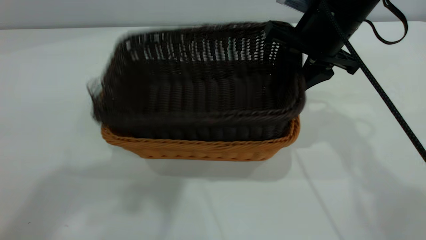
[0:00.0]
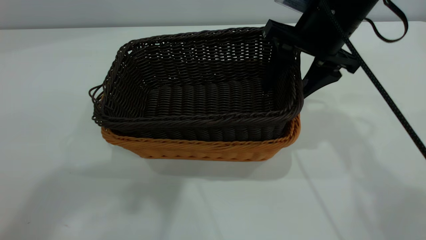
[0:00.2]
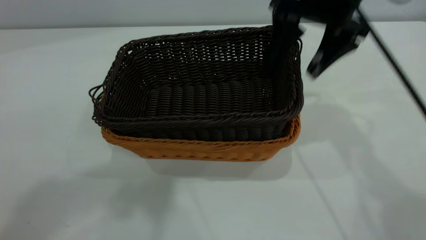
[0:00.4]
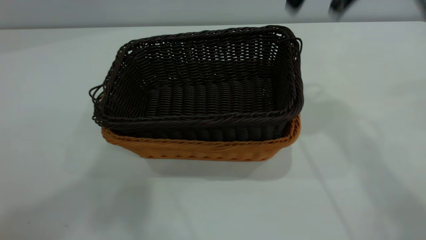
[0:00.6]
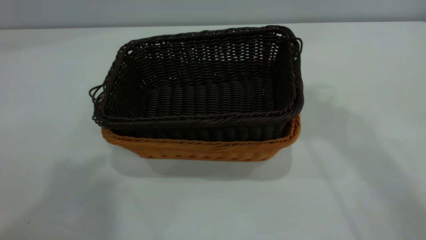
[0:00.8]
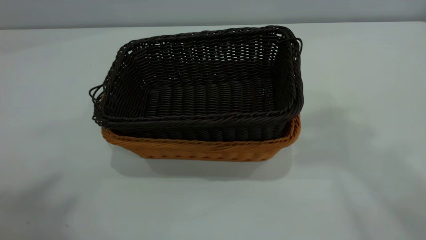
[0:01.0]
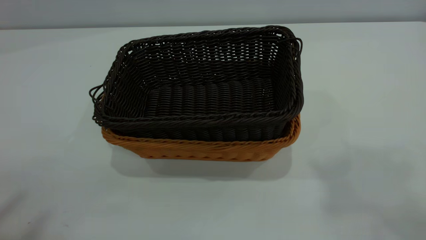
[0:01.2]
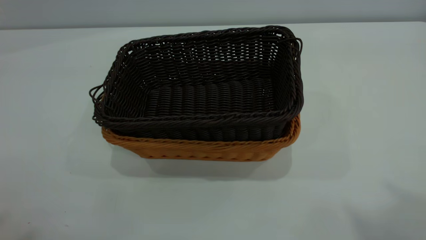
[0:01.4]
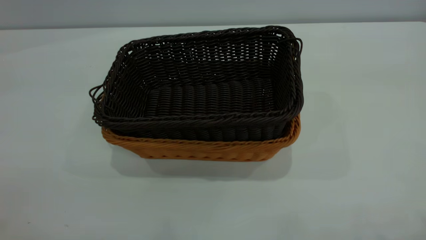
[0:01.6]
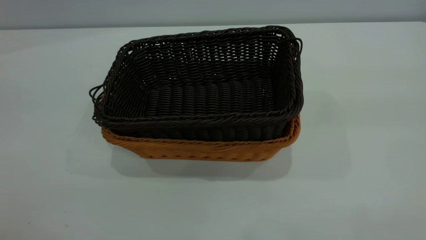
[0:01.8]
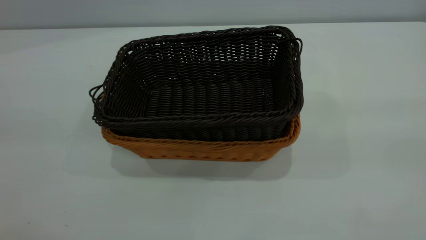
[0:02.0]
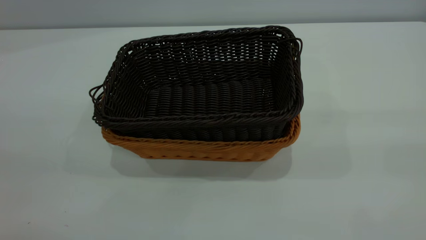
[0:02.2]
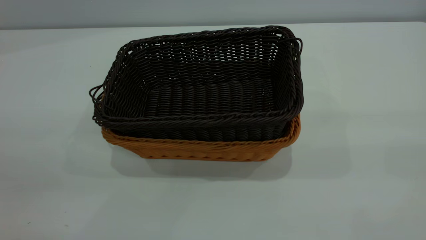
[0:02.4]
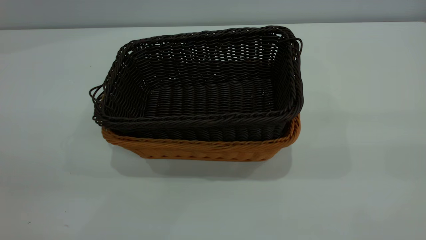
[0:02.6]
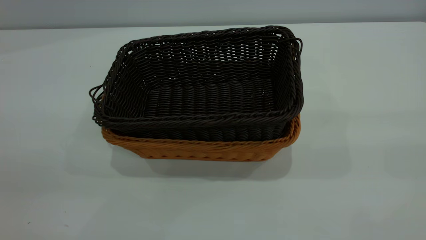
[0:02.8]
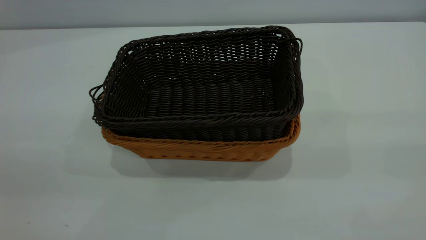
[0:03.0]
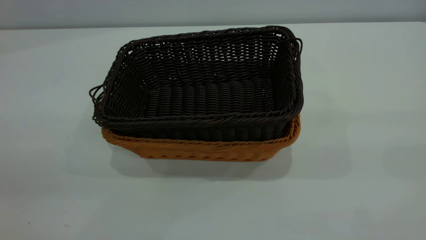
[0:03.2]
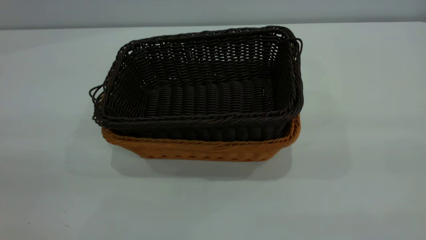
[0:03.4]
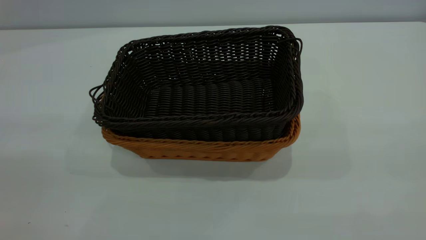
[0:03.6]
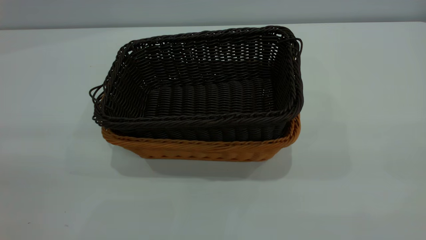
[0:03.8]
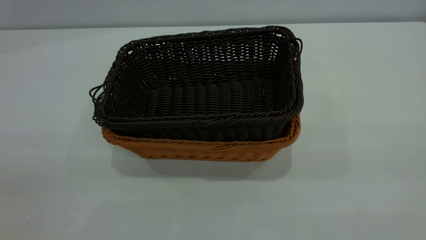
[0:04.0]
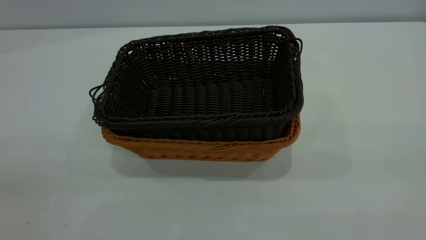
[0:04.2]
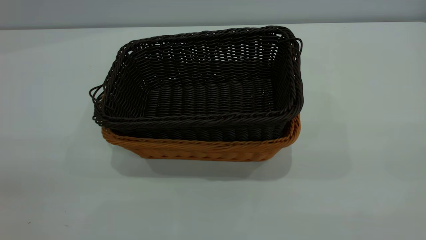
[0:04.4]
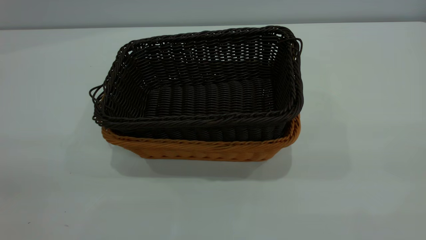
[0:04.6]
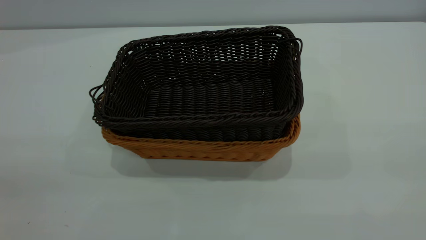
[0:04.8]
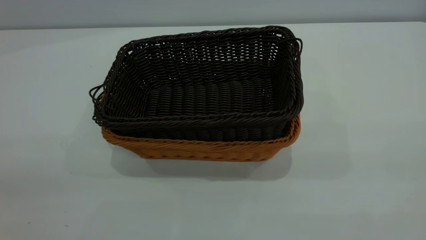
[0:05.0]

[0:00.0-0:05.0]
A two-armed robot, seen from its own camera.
Task of the whole recording: the left gripper grasp the brown basket and place it in the center of the table, the right gripper grasp the black basket and place it inside the brown one.
0:00.0 to 0:01.6: The right gripper goes approximately 40 cm upward and backward, and opens up, while the left gripper heads backward and to the left, covering approximately 25 cm.

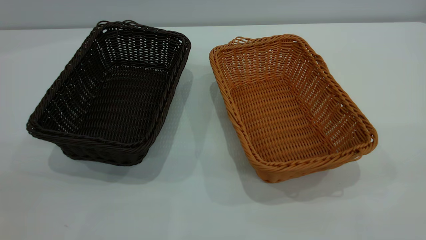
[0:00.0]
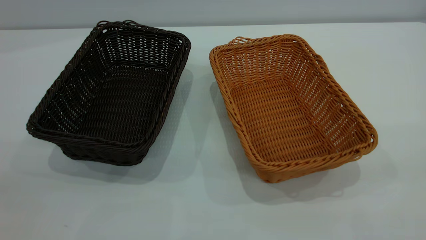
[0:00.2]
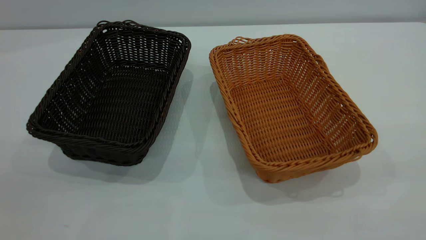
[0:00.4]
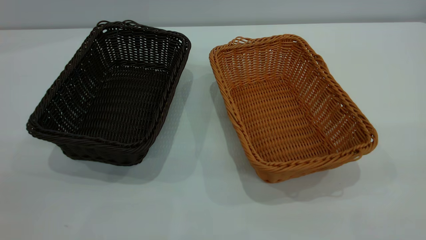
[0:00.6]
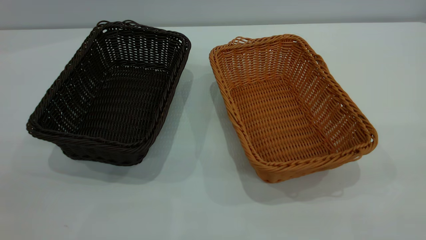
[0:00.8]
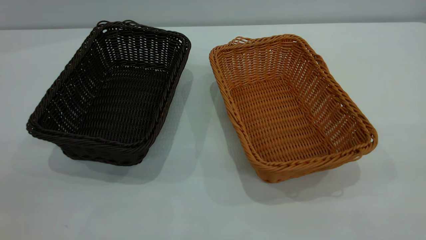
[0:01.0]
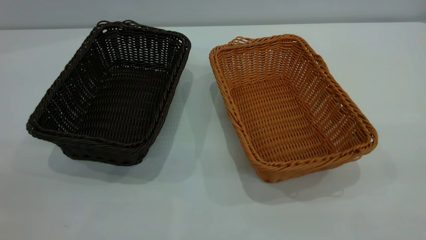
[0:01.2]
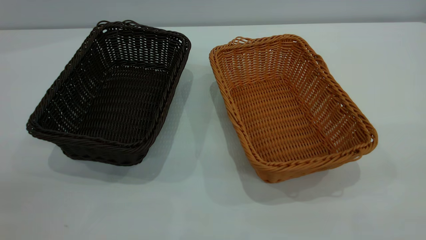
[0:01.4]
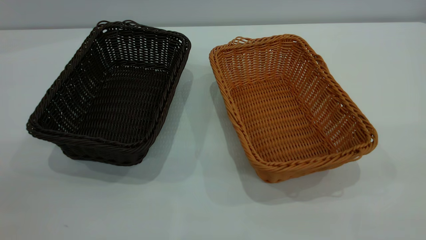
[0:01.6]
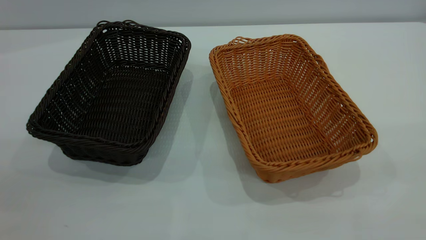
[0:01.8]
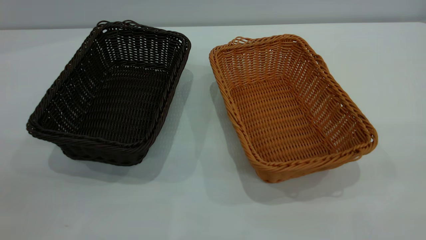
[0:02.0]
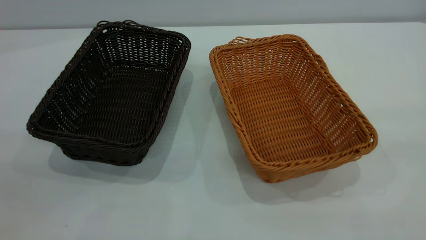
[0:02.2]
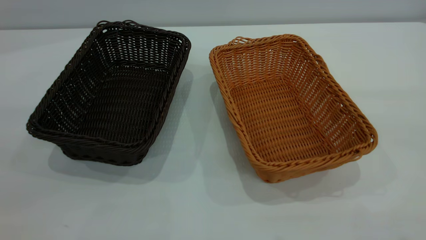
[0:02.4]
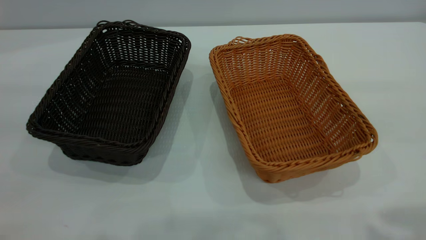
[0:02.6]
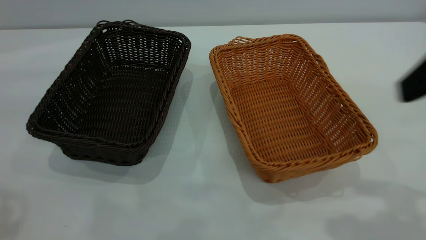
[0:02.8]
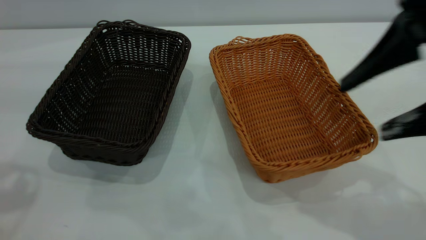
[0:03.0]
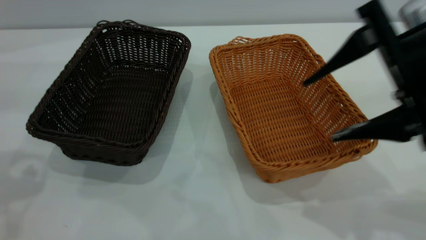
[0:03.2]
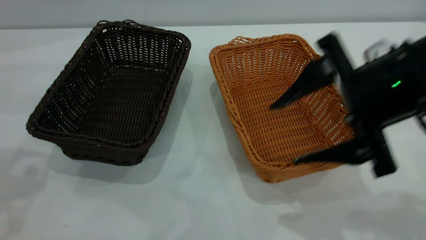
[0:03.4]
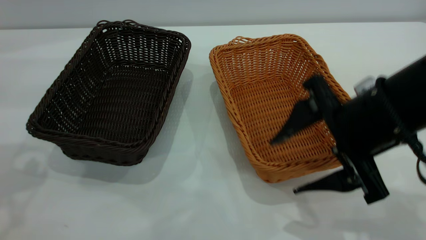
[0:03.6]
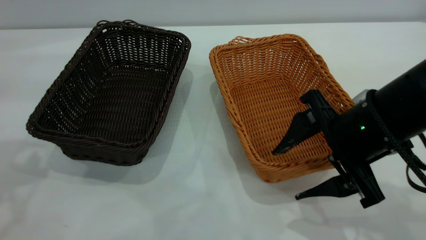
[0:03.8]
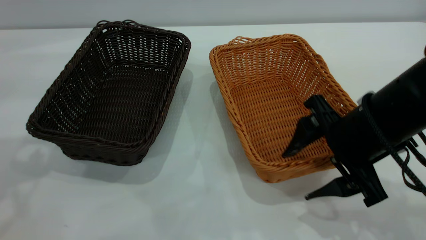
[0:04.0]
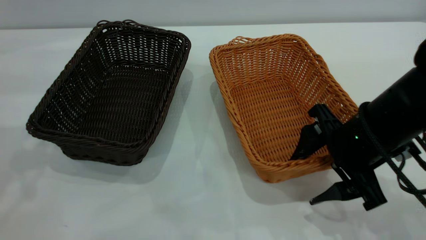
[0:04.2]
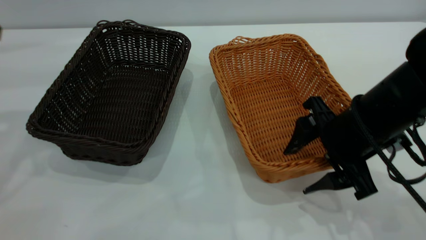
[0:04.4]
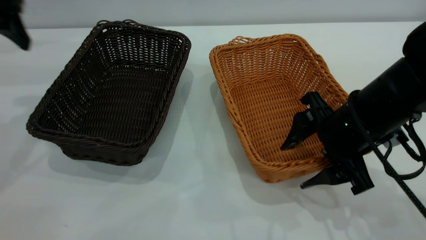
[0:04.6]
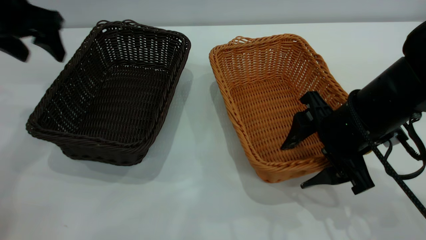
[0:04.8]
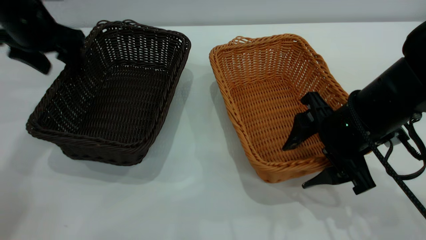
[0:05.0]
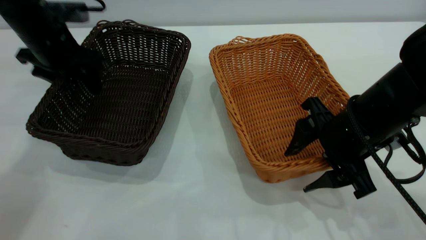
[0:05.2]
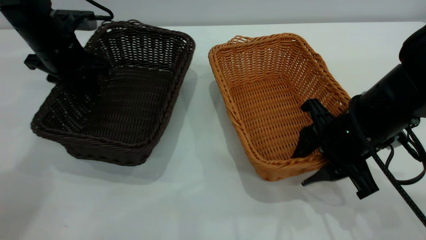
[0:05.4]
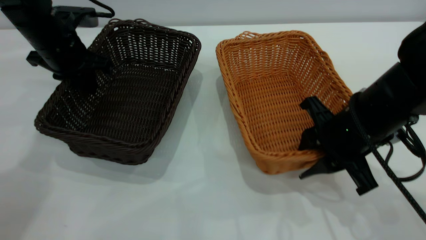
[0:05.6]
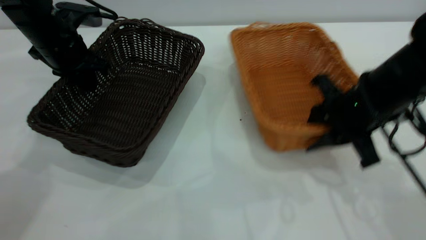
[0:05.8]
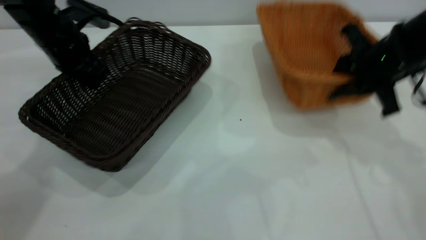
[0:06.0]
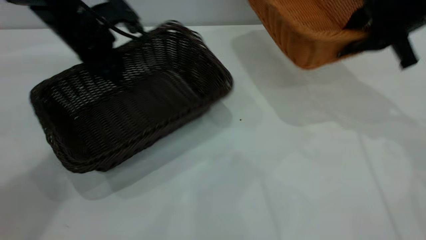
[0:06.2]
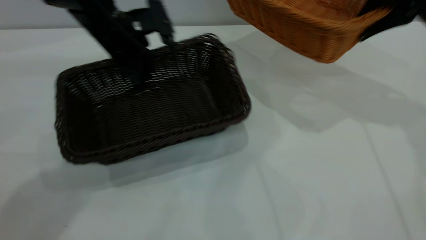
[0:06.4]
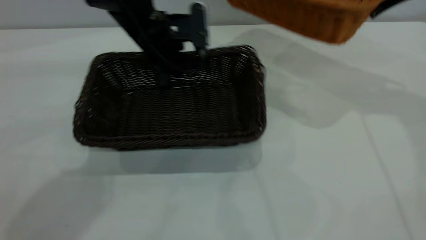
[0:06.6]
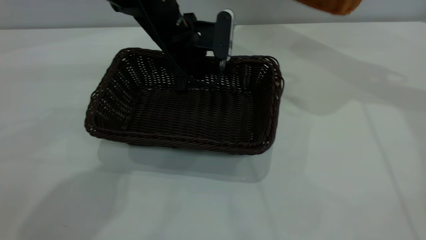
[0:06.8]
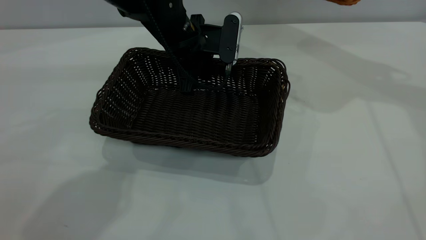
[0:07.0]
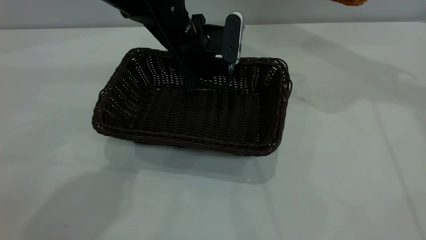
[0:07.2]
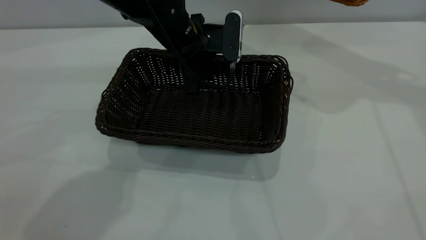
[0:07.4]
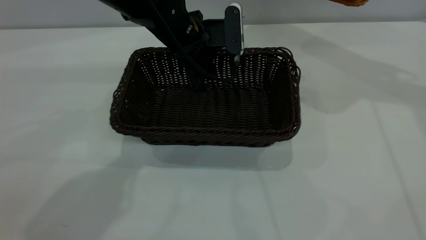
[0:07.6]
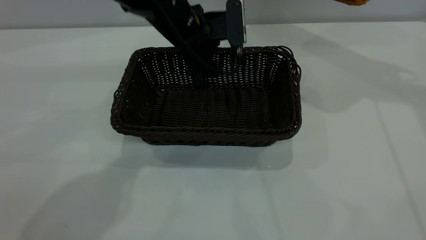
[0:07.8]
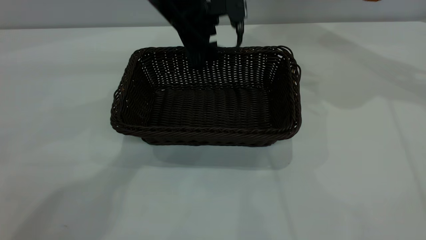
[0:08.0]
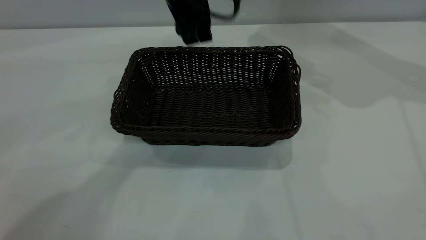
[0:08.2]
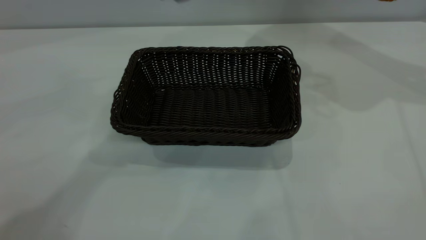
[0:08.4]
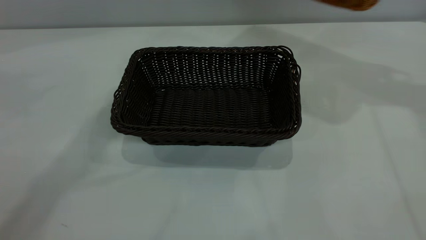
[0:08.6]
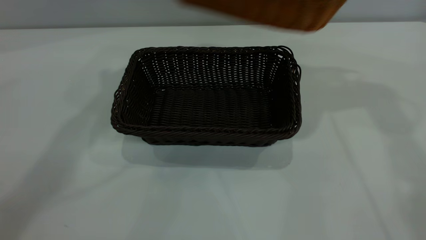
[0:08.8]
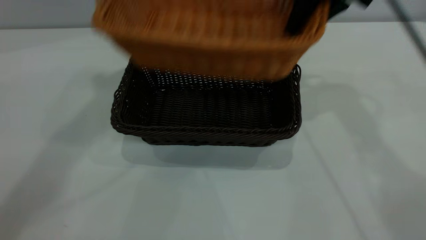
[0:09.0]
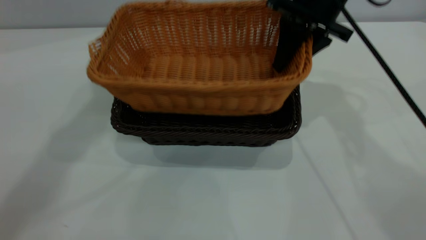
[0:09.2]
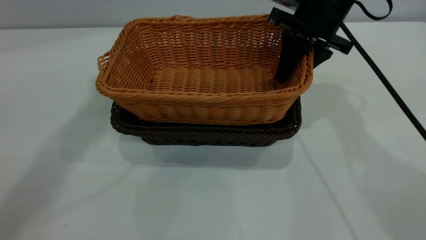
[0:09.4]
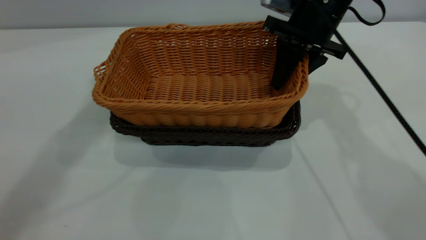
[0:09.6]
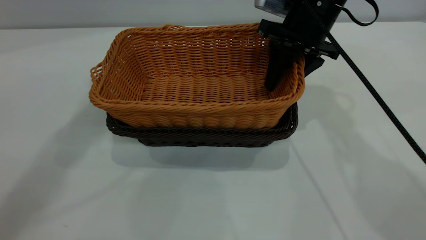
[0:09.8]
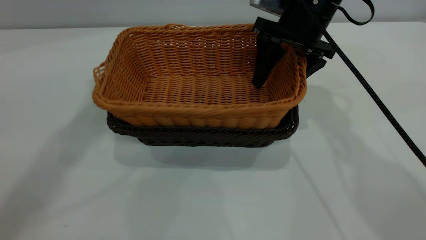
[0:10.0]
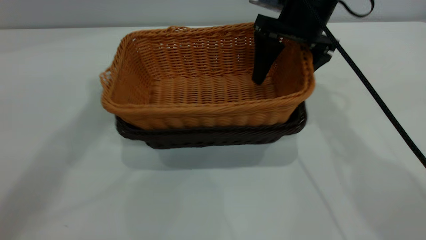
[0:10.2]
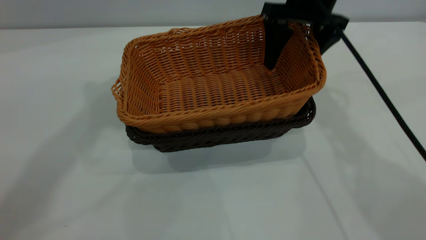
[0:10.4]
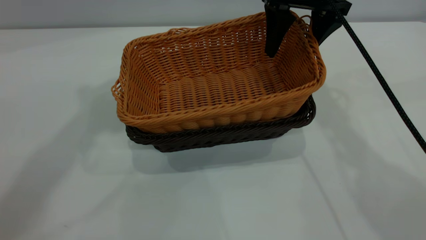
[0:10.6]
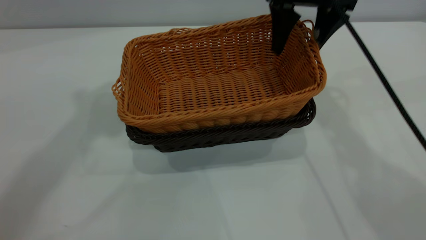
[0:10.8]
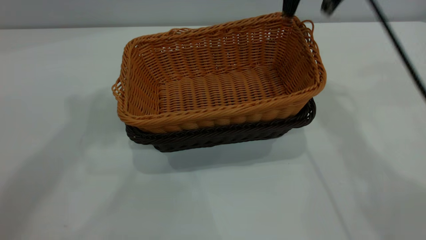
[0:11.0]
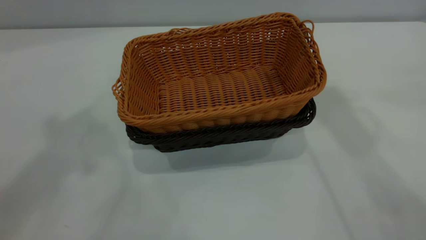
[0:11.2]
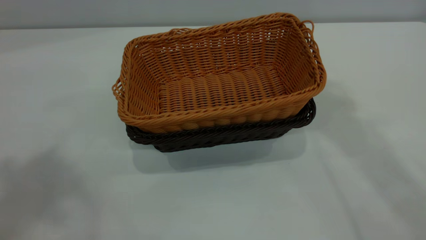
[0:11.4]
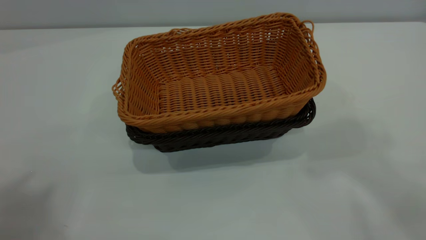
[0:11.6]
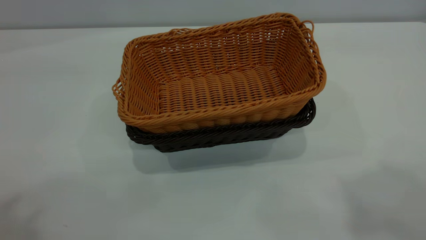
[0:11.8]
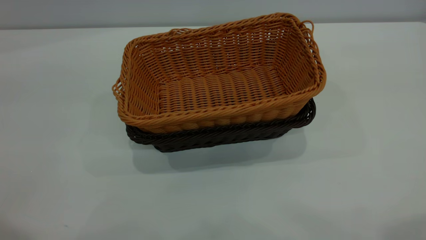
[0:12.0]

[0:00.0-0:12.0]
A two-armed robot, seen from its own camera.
Task of the whole recording: the left gripper grasp the black basket and place it in the center of the table, the right gripper grasp the brown basket and place it inside the black one.
Step, 0:00.0 to 0:06.0: Pick up the light basket with the right gripper.
Step, 0:06.4 to 0:08.0: Move the dark basket to the center of view.
Step, 0:08.4 to 0:11.0: Place the light basket on the dark basket.
0:00.0 to 0:01.6: Both grippers stay about where they are.
0:01.6 to 0:03.0: The right gripper heads forward and downward, covering roughly 25 cm, and opens up.
0:03.0 to 0:04.4: The right gripper moves downward, about 15 cm. The left gripper is displaced forward and downward by approximately 15 cm.
0:04.4 to 0:06.0: The right gripper moves forward, to the right and upward, approximately 15 cm, and closes up, while the left gripper travels downward, forward and to the right by approximately 20 cm, and closes its fingers.
0:06.0 to 0:07.6: The right gripper heads upward and forward, covering approximately 20 cm; the left gripper shifts about 20 cm to the right, and opens up.
0:07.6 to 0:09.0: The right gripper moves to the left and downward, some 15 cm; the left gripper goes some 35 cm upward and to the left.
0:09.0 to 0:10.4: The right gripper opens.
0:10.4 to 0:12.0: The left gripper moves backward, some 25 cm, while the right gripper shifts about 40 cm backward and upward.
